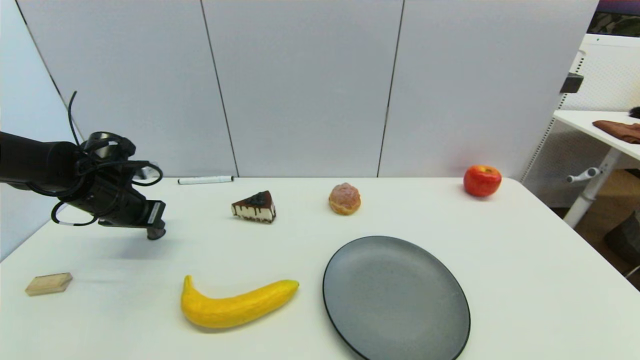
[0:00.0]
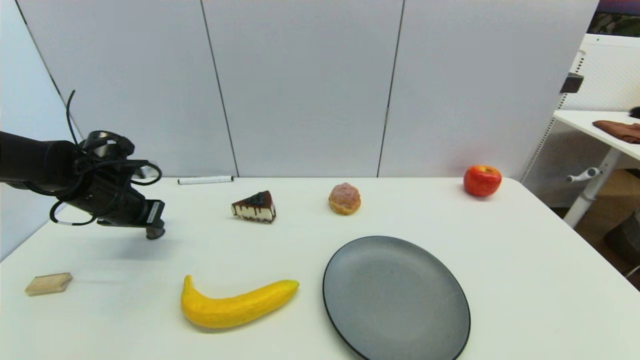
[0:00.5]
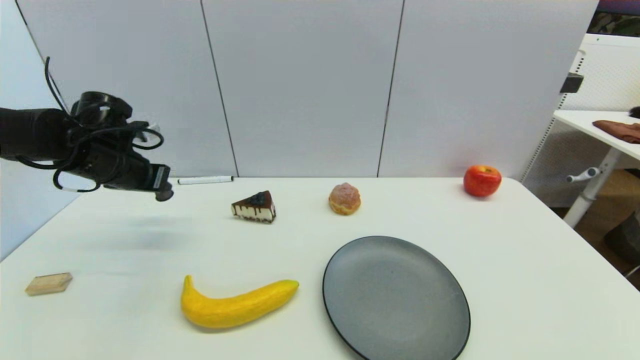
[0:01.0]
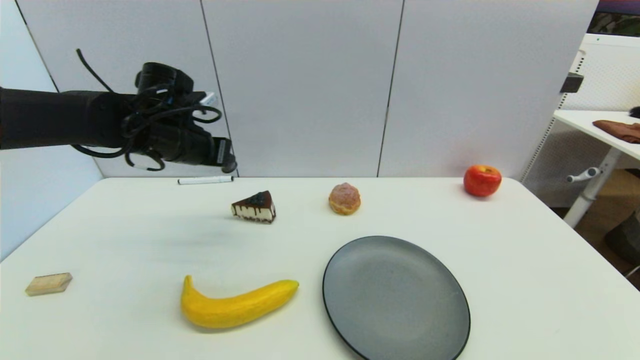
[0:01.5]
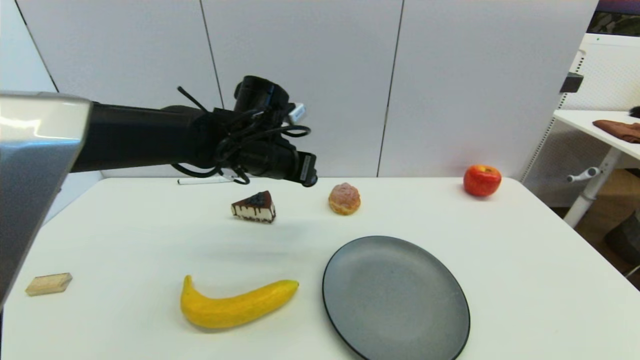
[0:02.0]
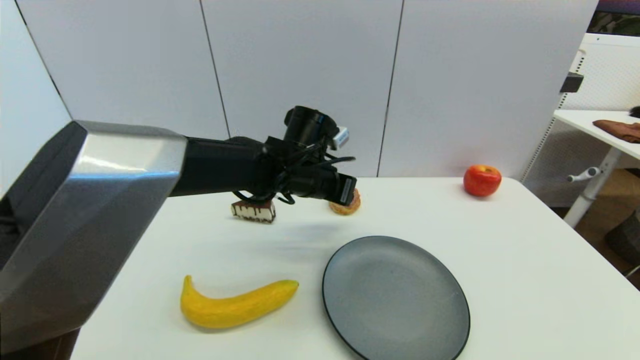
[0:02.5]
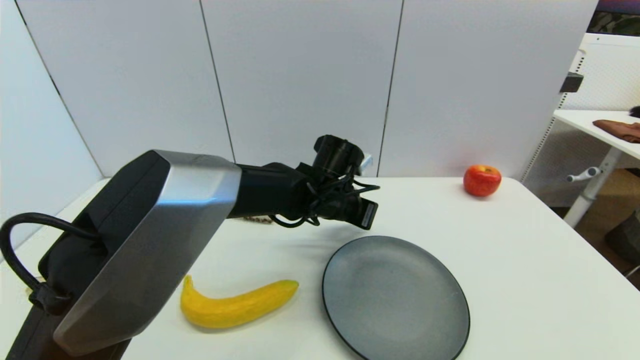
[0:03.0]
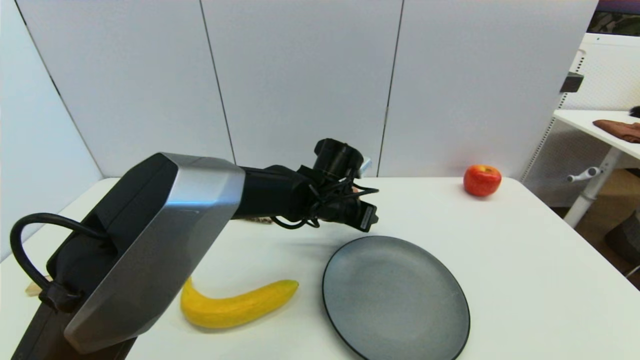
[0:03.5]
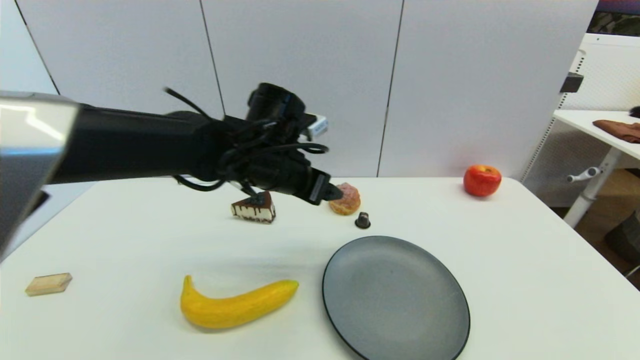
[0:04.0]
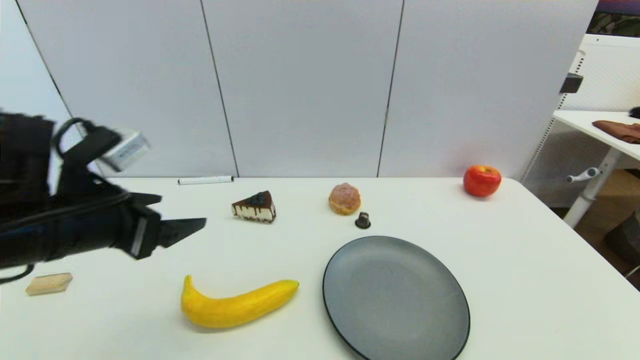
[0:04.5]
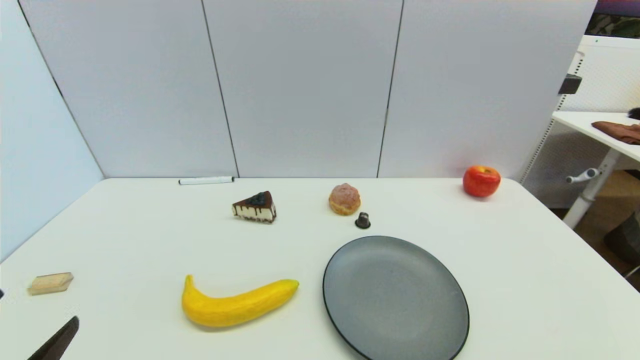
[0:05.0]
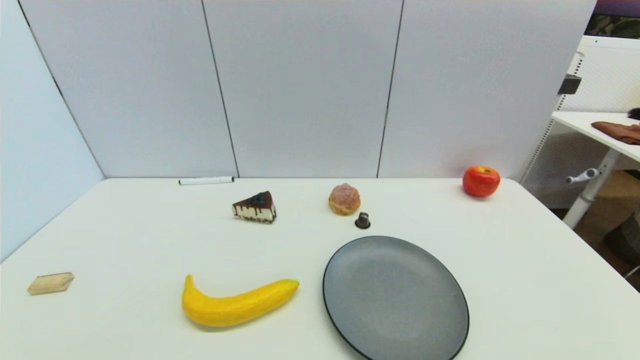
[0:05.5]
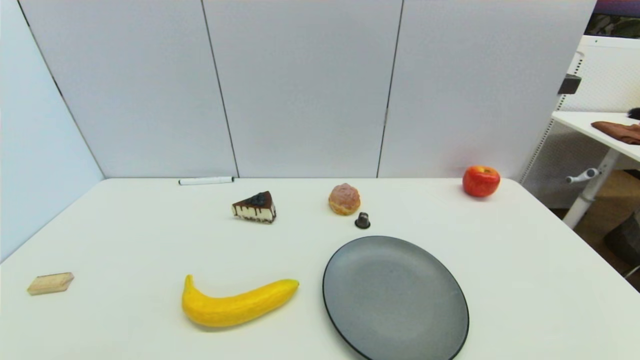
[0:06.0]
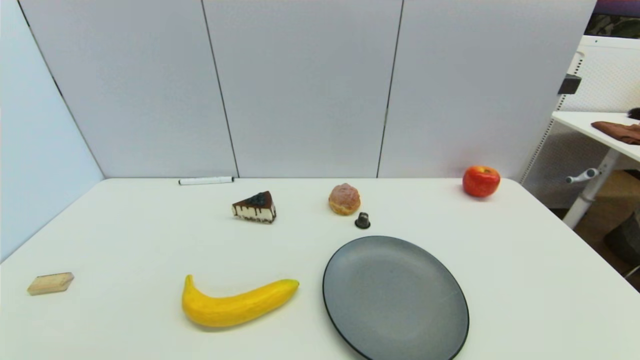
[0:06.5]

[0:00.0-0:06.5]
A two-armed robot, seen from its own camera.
Step, 0:01.0 to 0:03.5: Place the coffee capsule on the table with left gripper.
0:00.0 to 0:02.0: The left gripper heads to the right, covering approximately 25 cm.
0:02.0 to 0:04.5: The left gripper is displaced backward and to the left by some 25 cm, and opens its fingers.
0:04.5 to 0:06.5: The left gripper is displaced backward and downward by some 25 cm.
